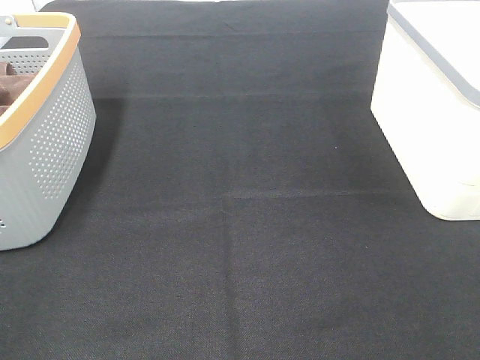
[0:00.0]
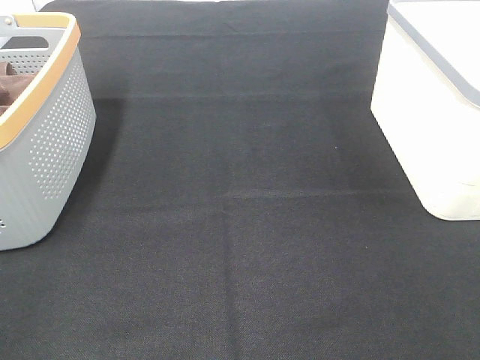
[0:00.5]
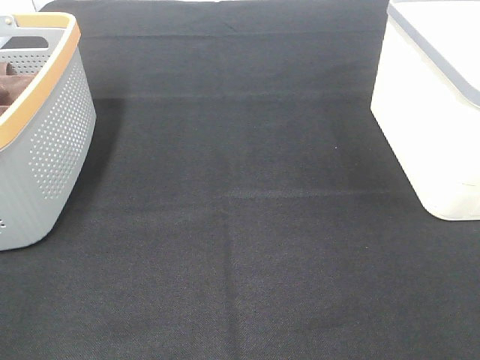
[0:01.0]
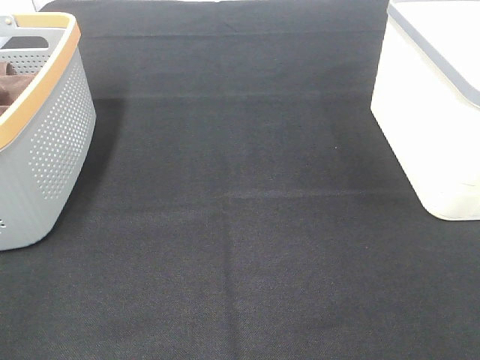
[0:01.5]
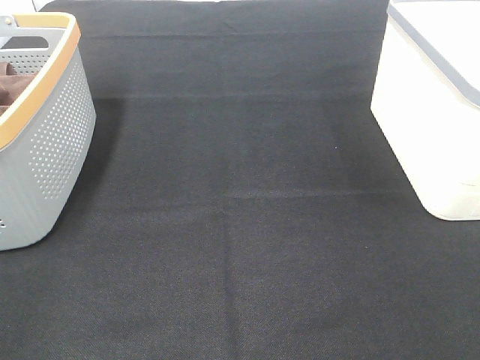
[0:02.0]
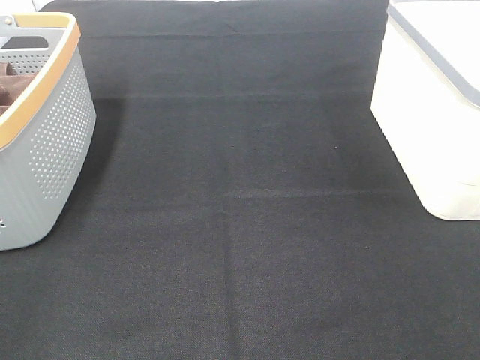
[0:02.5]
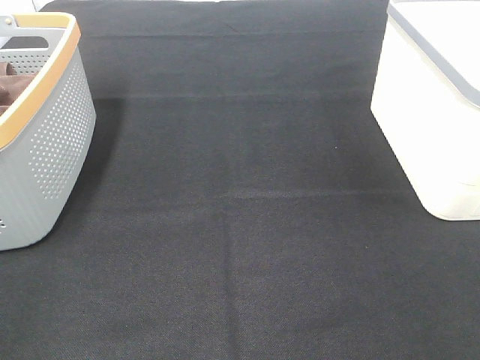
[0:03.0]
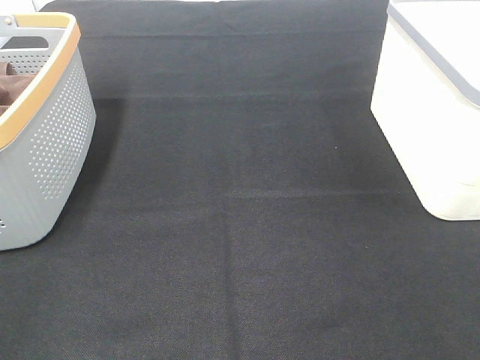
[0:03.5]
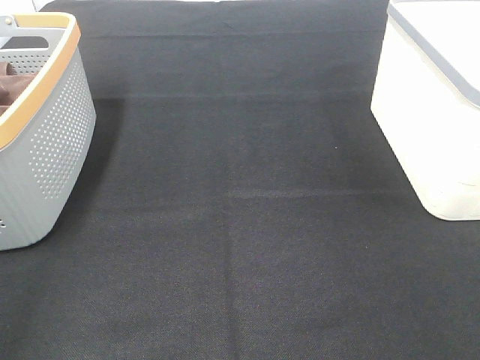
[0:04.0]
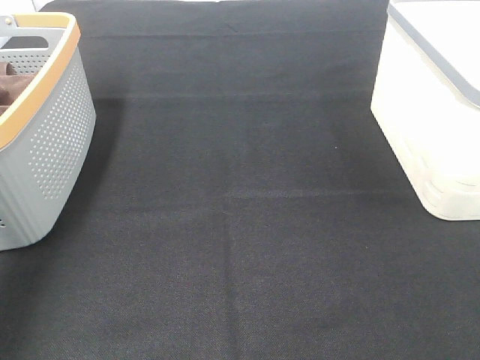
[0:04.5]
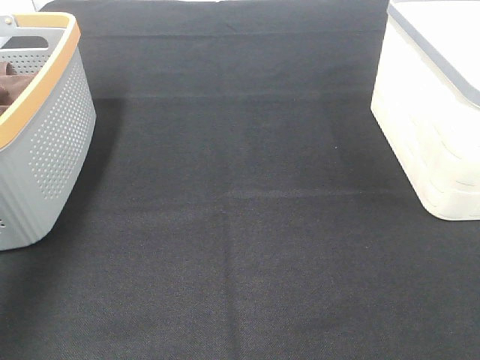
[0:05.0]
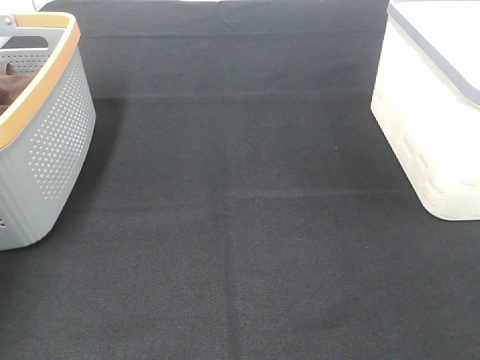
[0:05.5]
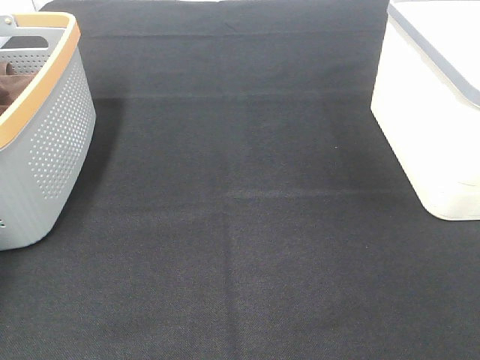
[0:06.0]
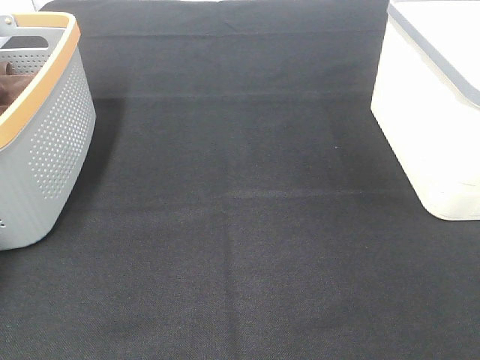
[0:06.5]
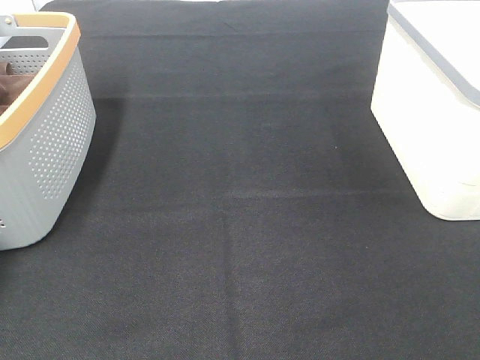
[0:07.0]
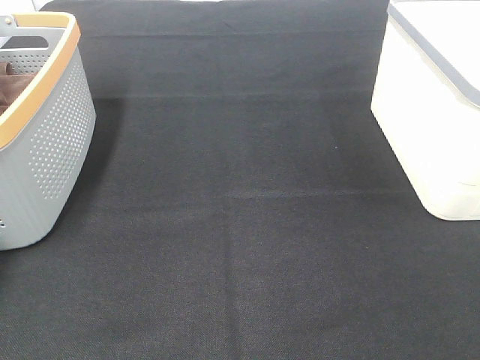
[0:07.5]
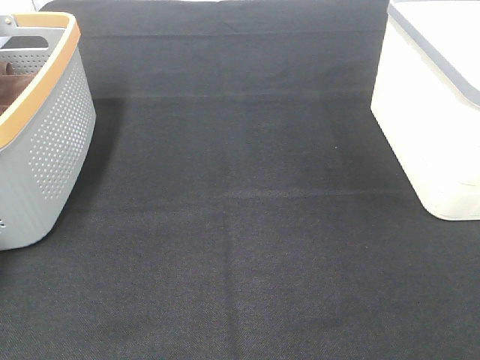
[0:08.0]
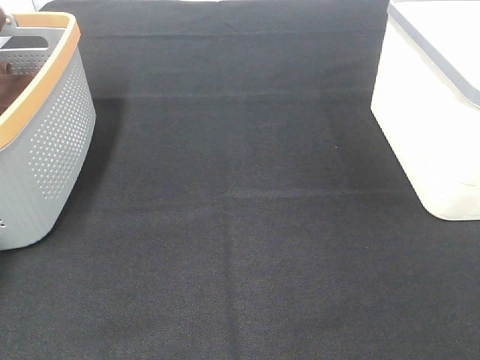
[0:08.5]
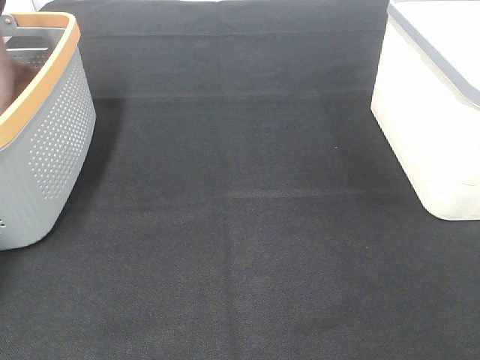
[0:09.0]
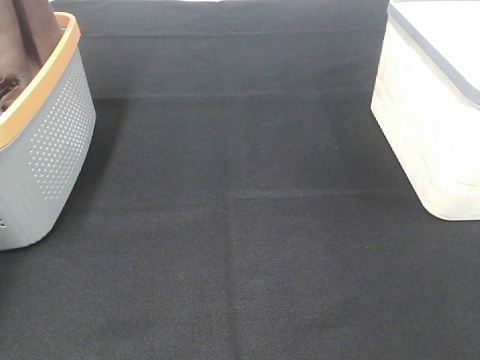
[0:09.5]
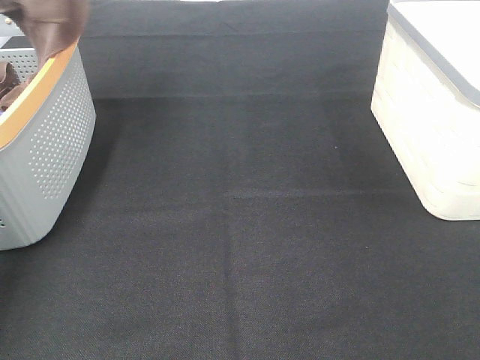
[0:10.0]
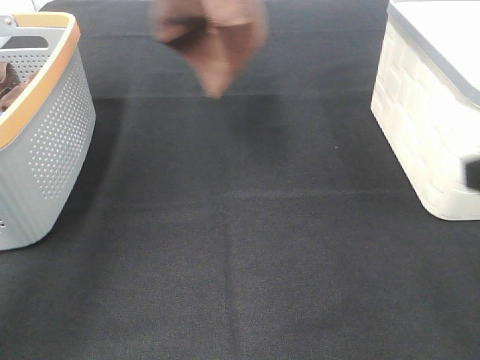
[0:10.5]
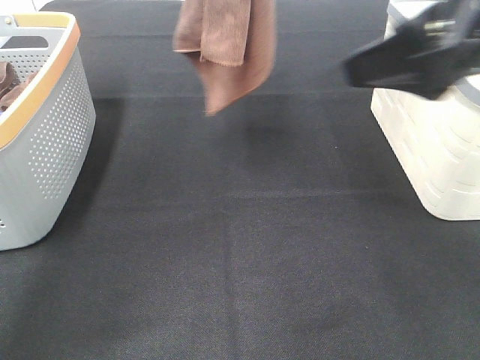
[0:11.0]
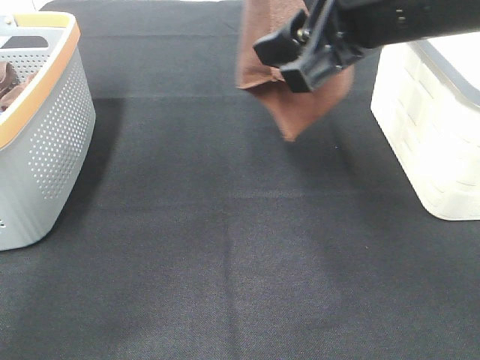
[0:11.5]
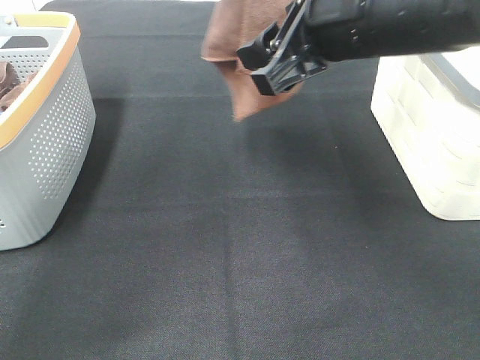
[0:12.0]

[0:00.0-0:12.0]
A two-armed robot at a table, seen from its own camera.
Task of the whole recording: Remove the towel and place it.
0:00.0 to 0:02.0: Both grippers stay about where they are.
0:08.0 to 0:10.0: The left gripper moves upward and to the right, about 30 cm.
0:10.0 to 0:12.0: The right gripper is displaced forward and to the left by some 30 cm. Meanwhile the left gripper goes about 25 cm to the right.

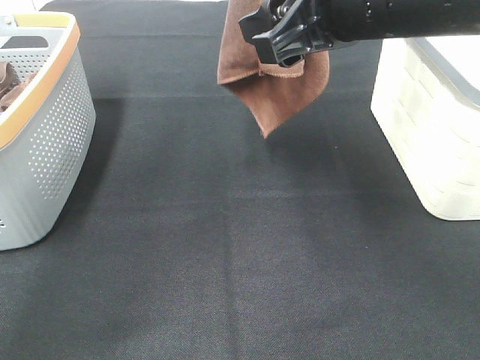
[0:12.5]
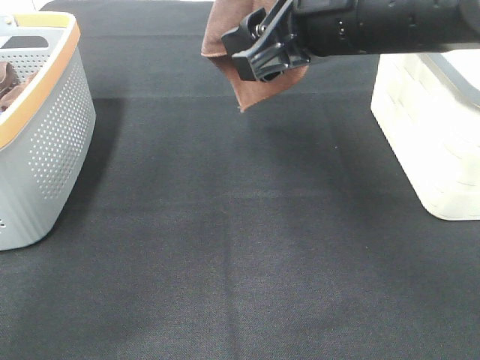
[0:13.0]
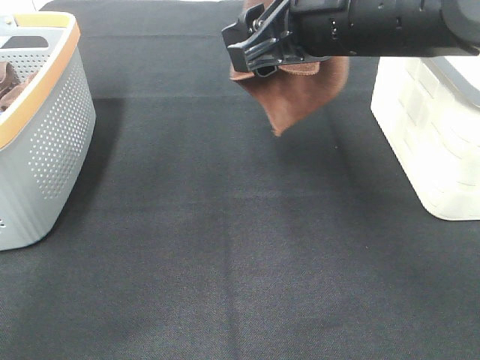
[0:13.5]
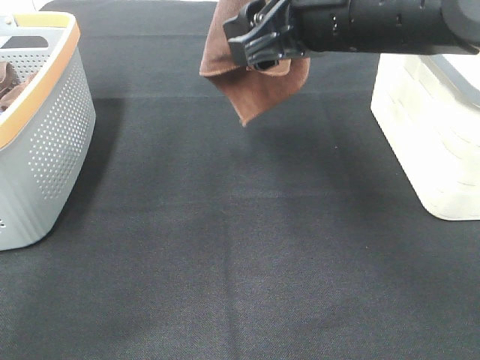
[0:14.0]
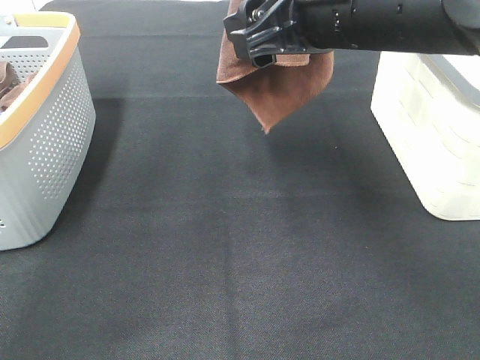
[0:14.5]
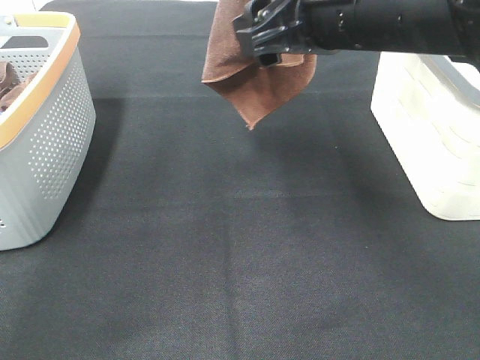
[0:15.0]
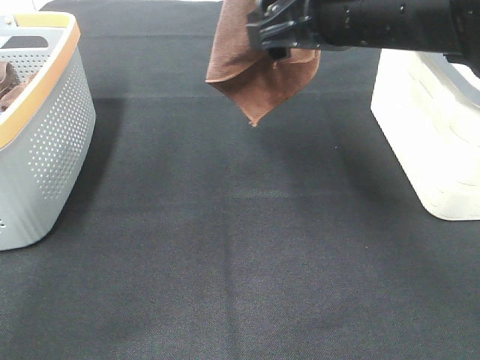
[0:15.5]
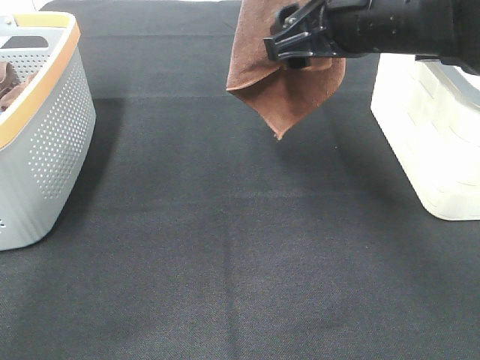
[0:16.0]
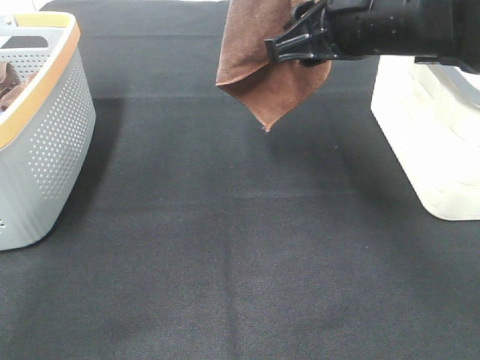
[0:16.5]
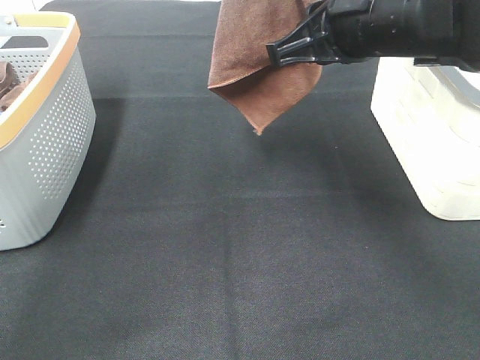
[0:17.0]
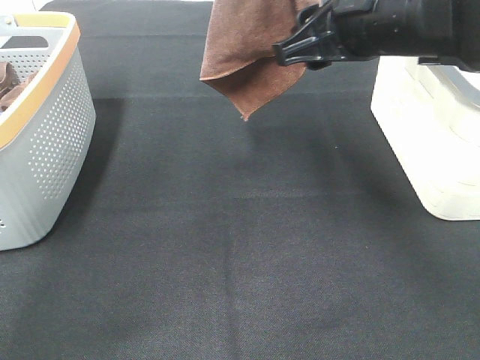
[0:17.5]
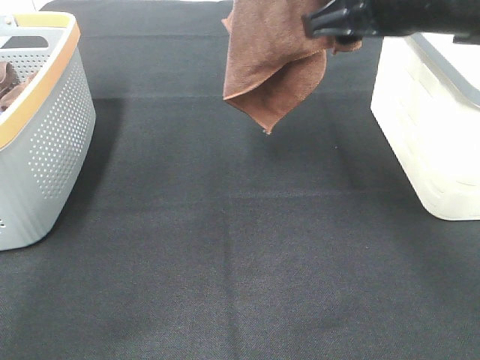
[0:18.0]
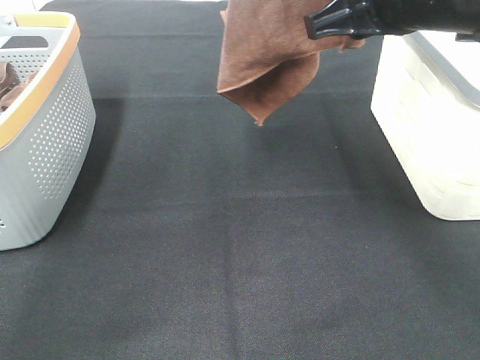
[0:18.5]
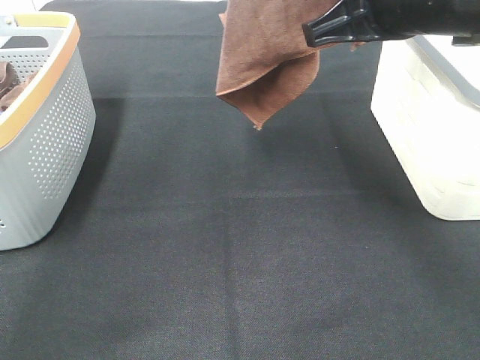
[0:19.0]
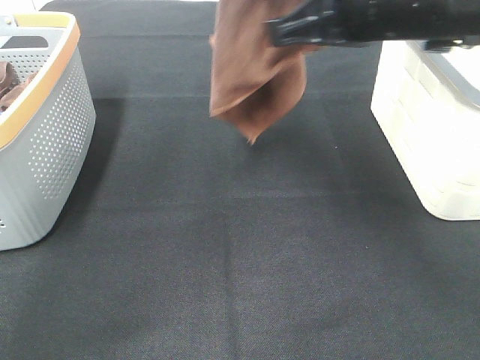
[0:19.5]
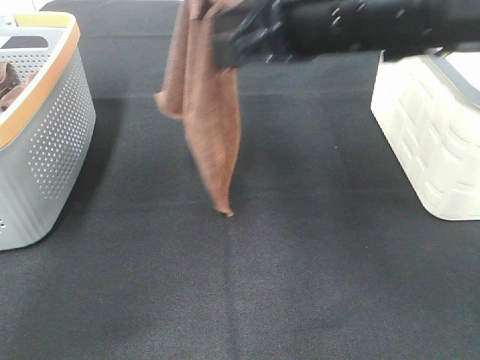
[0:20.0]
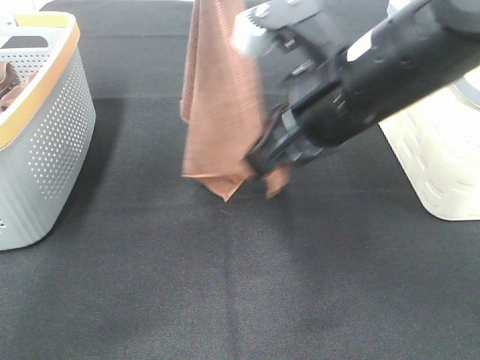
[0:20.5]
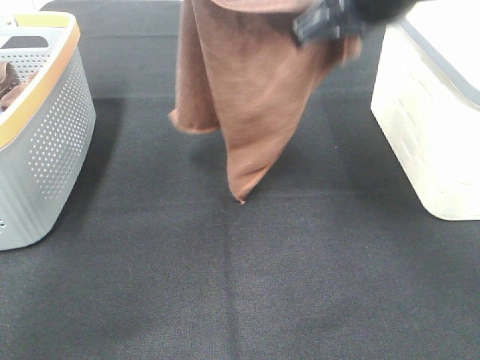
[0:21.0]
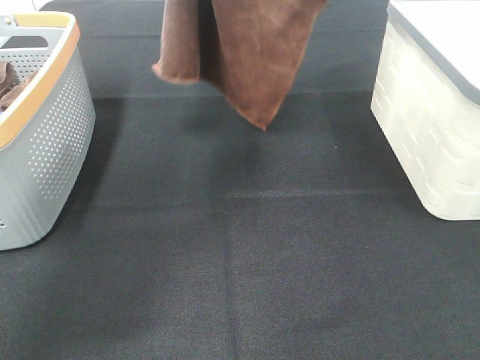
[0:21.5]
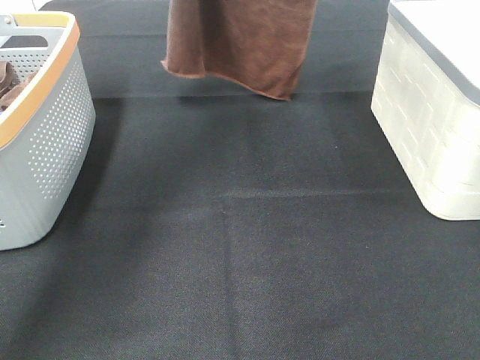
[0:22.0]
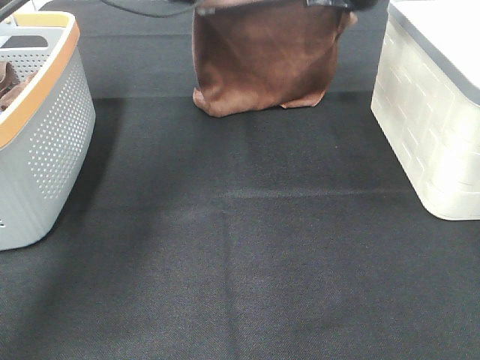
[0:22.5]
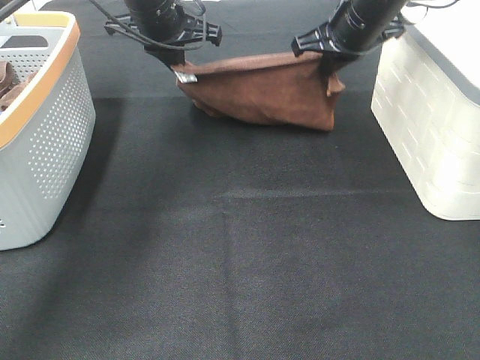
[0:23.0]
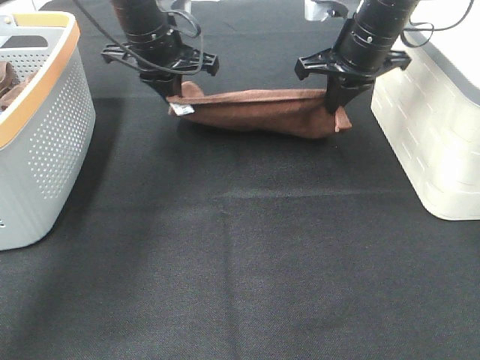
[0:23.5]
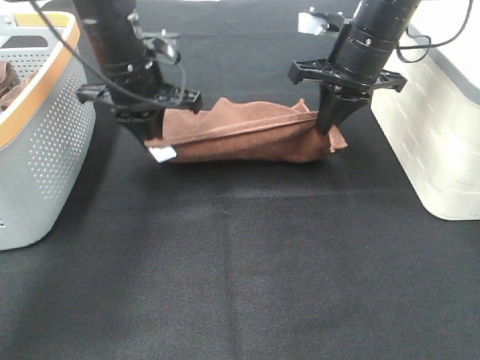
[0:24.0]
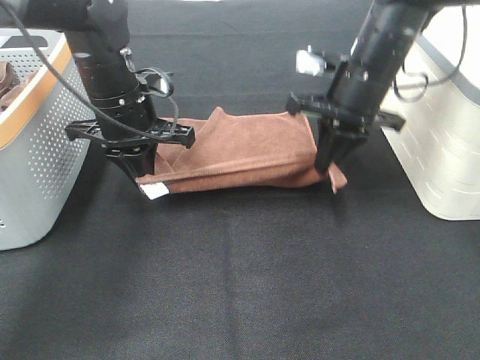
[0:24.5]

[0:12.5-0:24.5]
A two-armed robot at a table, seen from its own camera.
Task of the whole recording: Remove the towel and place it.
Step, 0:12.5 to 0:17.5: Right hand: grab a corner of the brown towel and straighten it.
Step, 0:18.0 to 0:20.0: Left hand: spread the brown towel flat on the table.
Step, 0:18.0 to 0:20.0: Right hand: spread the brown towel flat on the table.
0:12.5 to 0:14.5: There are only small adjustments of the grippers.
0:14.5 to 0:16.5: The right gripper closes up.
0:16.5 to 0:18.5: The grippers make only small movements.
0:18.5 to 0:20.5: The right gripper moves to the left, about 5 cm, and closes up; the left gripper moves downward, about 5 cm.
0:20.5 to 0:22.5: The left gripper moves downward and forward, some 25 cm. The right gripper moves forward, some 25 cm.
0:22.5 to 0:24.5: Both grippers move backward and downward, about 15 cm.

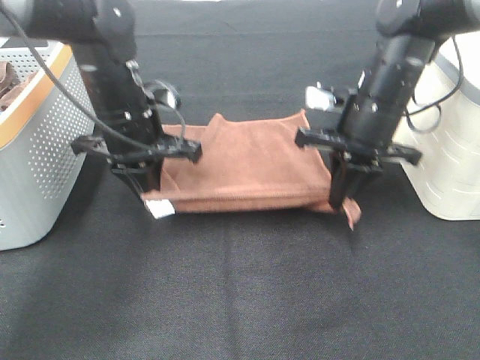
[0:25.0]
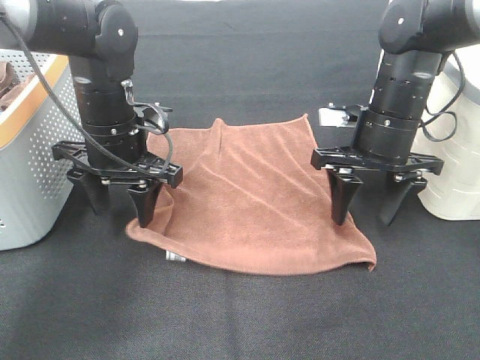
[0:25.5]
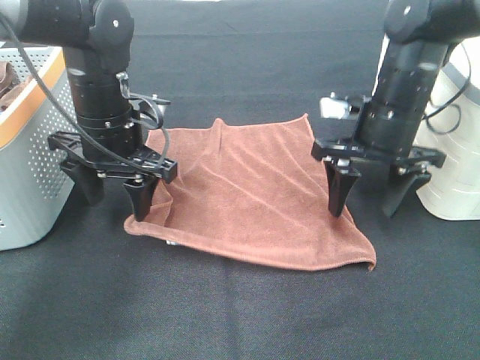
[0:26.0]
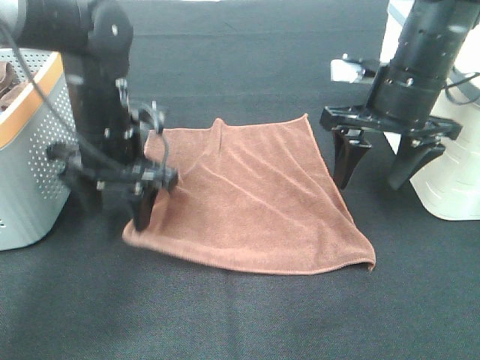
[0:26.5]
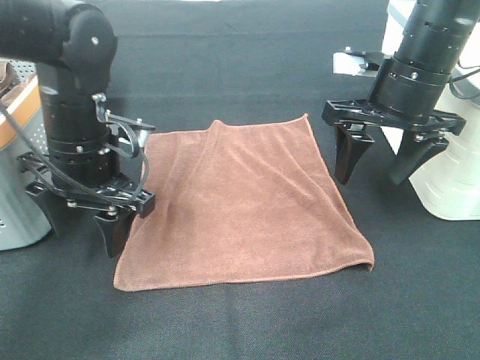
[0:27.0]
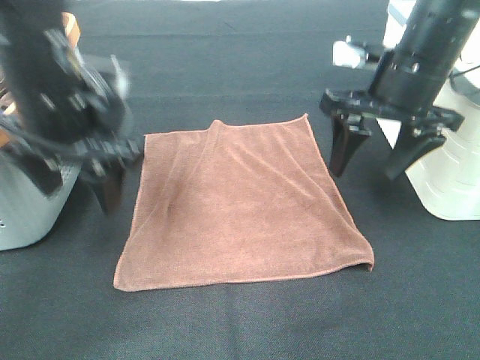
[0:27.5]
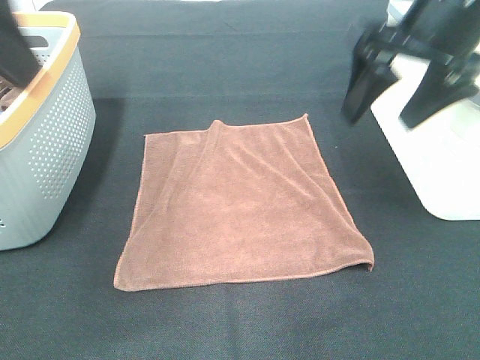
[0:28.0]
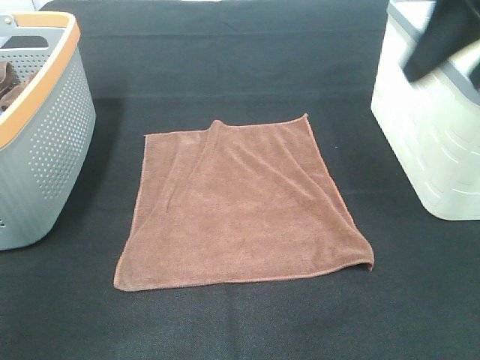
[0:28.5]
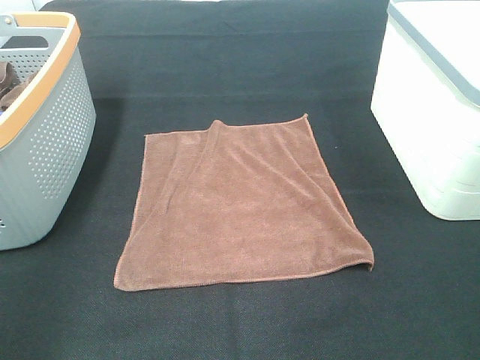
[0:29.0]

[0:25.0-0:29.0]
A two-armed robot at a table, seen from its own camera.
Task of the whole recording: Remove the towel and place it.
0:25.0 to 0:27.0: The left gripper moves backward, about 5 cm, and opens up. The right gripper travels upward by roughly 5 cm, and opens its fingers.
0:27.0 to 0:29.0: The right gripper travels backward and upward by approximately 25 cm; the left gripper goes about 30 cm backward, to the left and upward.
